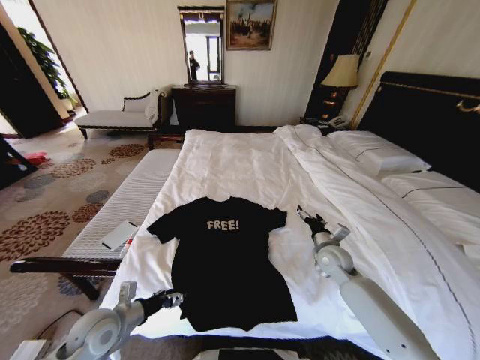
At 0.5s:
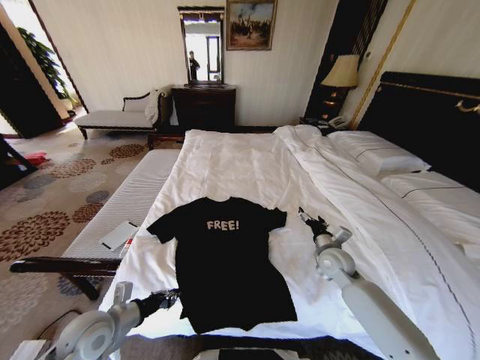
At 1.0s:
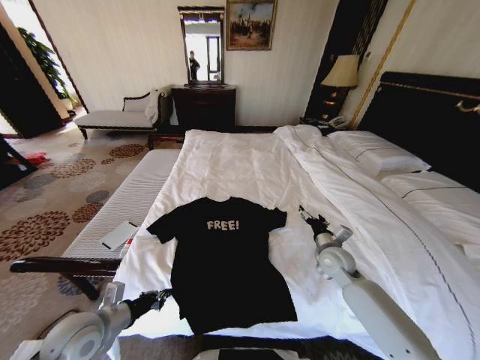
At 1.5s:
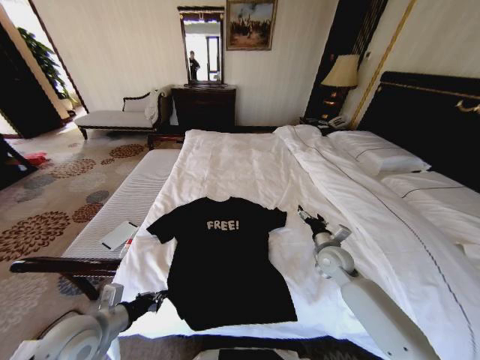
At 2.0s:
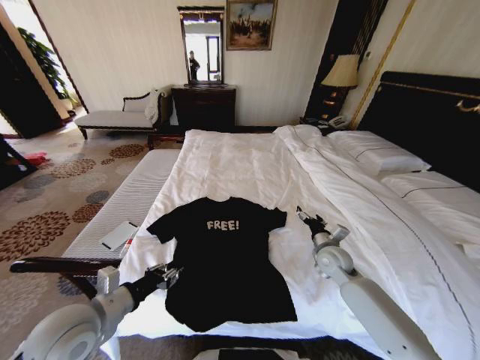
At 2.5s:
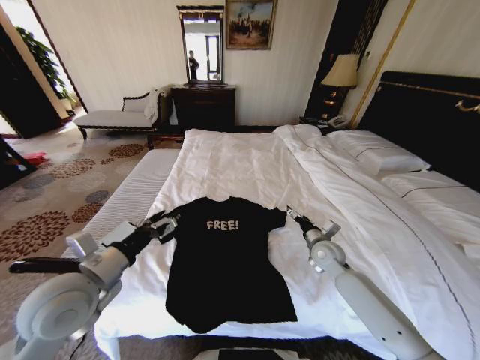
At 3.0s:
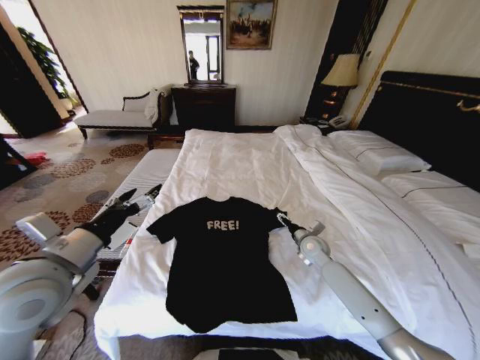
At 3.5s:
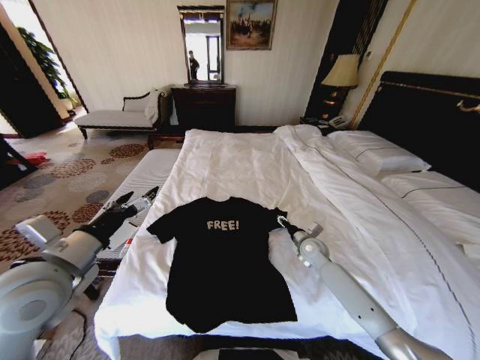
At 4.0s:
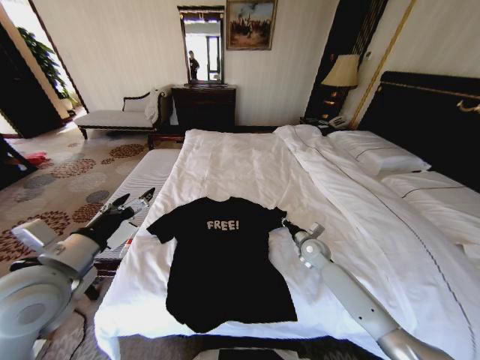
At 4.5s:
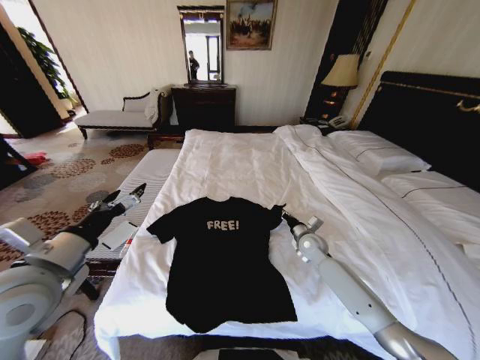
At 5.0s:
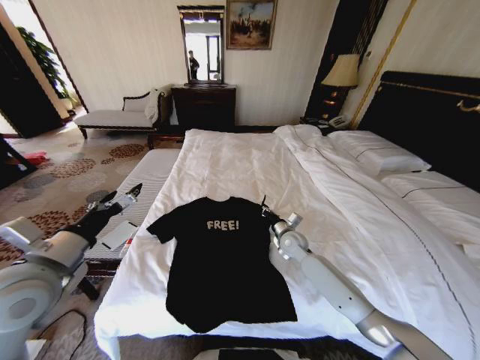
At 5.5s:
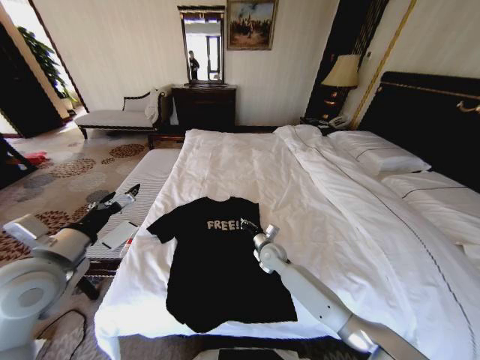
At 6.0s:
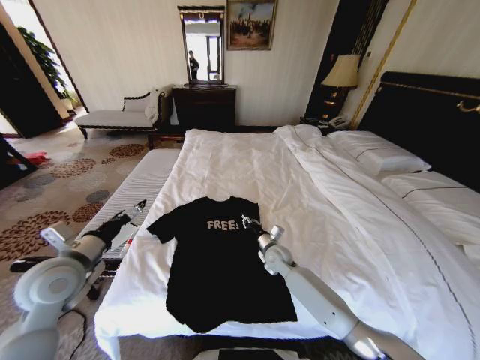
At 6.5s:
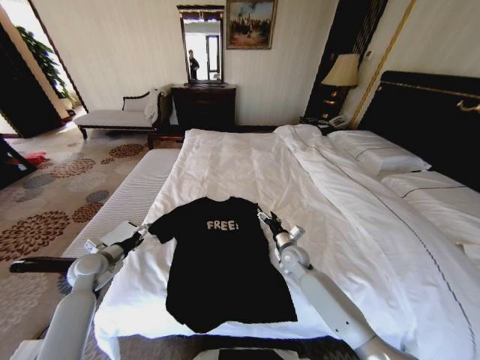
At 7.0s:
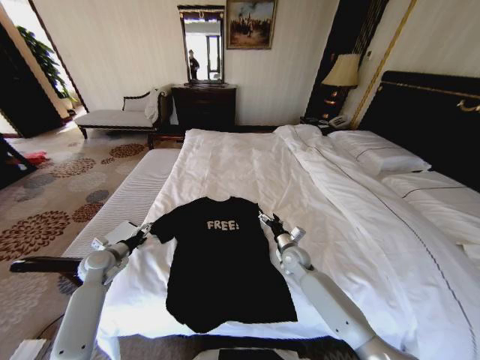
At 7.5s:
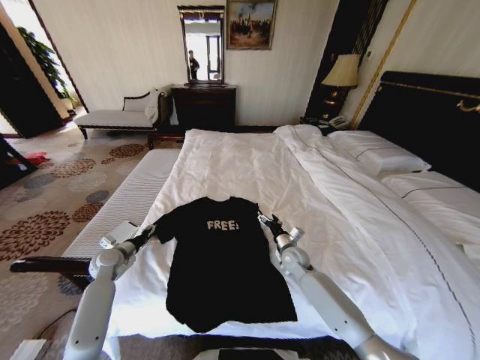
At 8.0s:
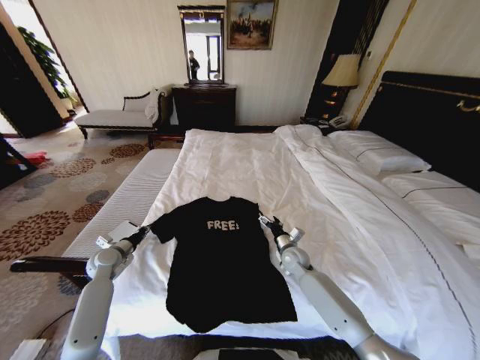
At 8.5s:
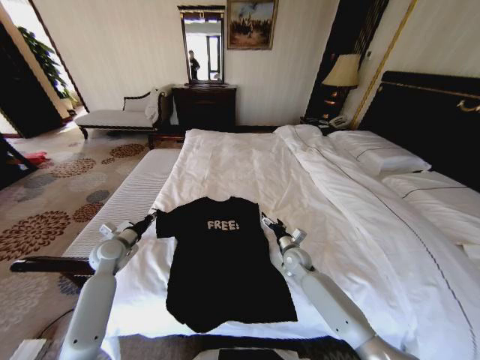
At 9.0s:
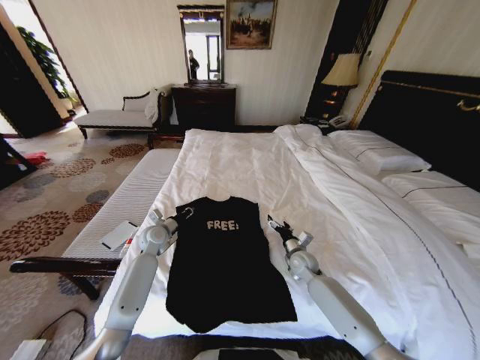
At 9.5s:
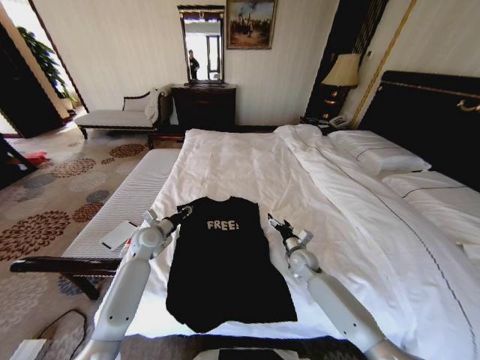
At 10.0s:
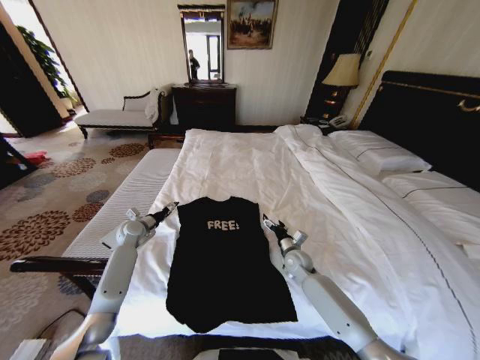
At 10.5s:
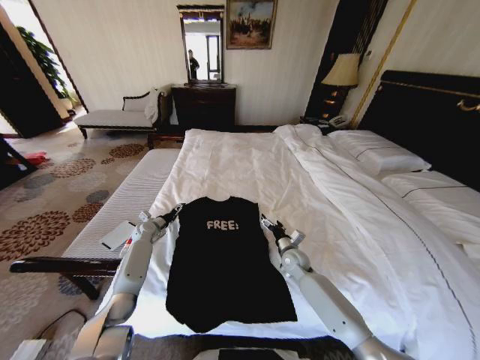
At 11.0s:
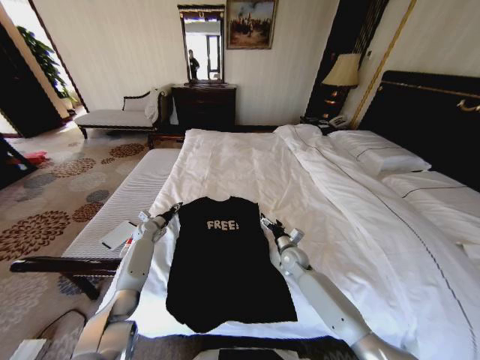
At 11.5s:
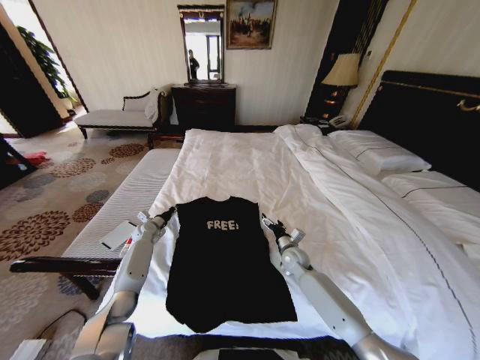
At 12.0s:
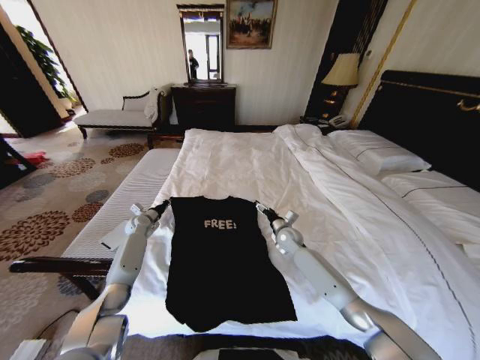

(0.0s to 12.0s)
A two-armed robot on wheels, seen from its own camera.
Task of the whole recording: Fold the clothes on the bed.
0.0s - 2.0s: The left gripper travels upward by roughly 10 cm, and closes up.
2.0s - 4.0s: The right gripper is displaced forward by approximately 5 cm, and closes up; the left gripper is displaced upward by about 10 cm, and opens up.
4.0s - 6.0s: The right gripper travels to the left by some 15 cm; the left gripper moves downward and forward, some 10 cm.
6.0s - 8.0s: The right gripper goes roughly 5 cm to the right, and opens. Meanwhile the left gripper travels downward and forward by approximately 20 cm, and closes its fingers.
8.0s - 10.0s: The left gripper travels forward by about 10 cm, moves approximately 15 cm to the right and comes back, and opens its fingers.
10.0s - 12.0s: The grippers both shift forward by some 5 cm. The left gripper closes up.

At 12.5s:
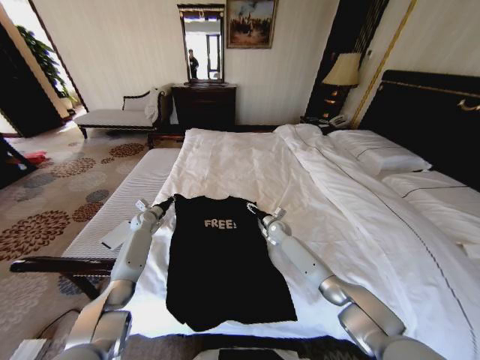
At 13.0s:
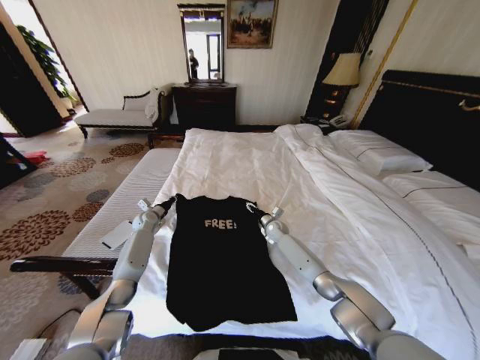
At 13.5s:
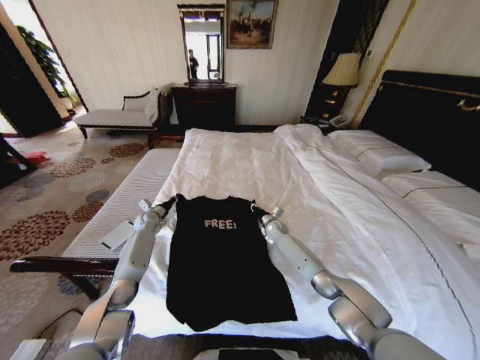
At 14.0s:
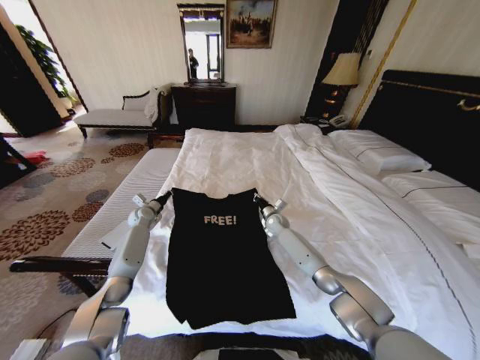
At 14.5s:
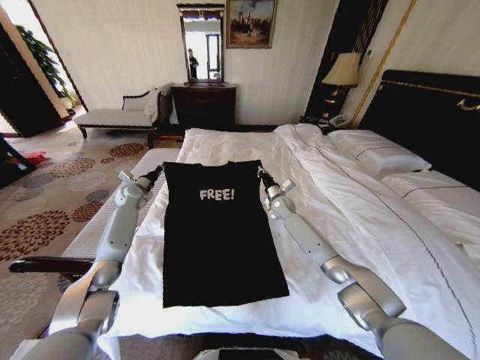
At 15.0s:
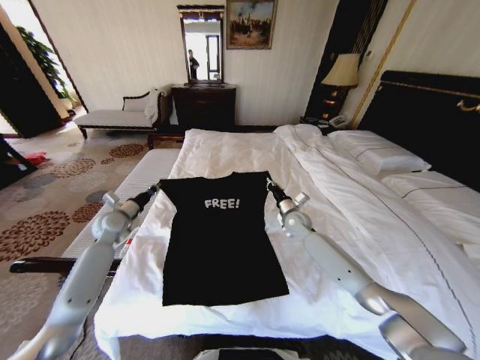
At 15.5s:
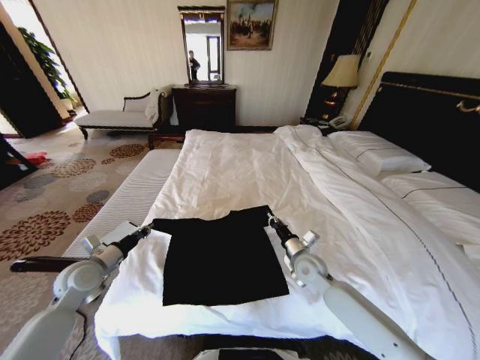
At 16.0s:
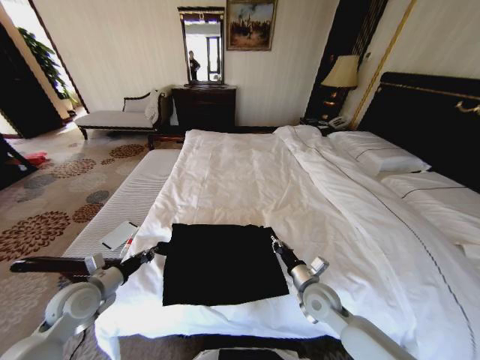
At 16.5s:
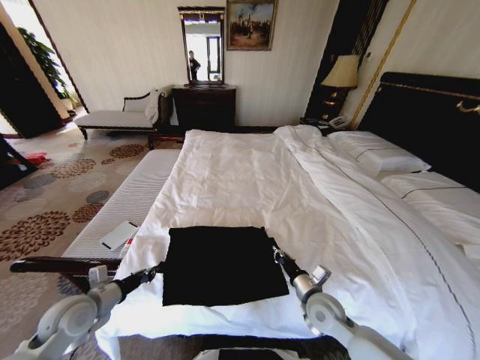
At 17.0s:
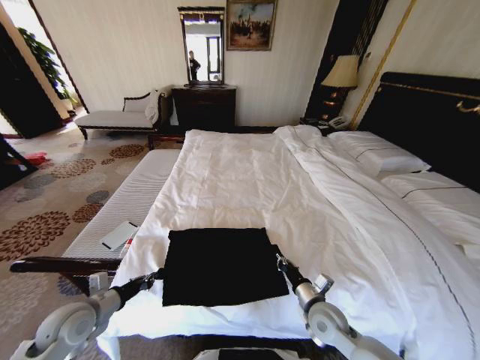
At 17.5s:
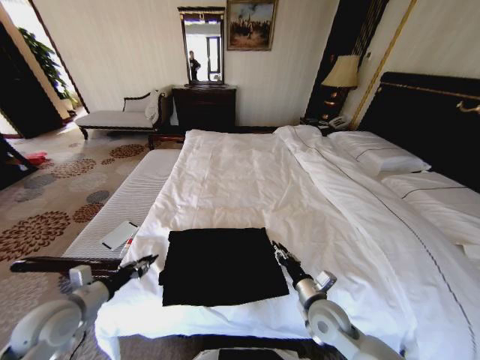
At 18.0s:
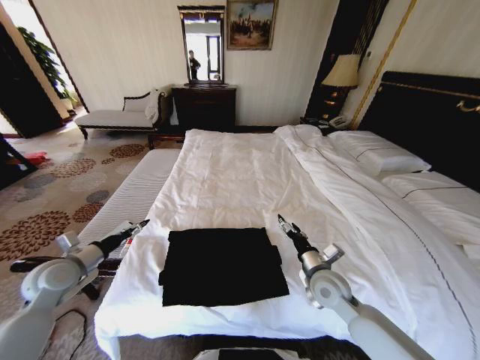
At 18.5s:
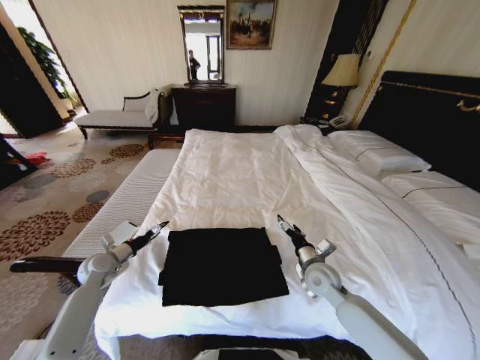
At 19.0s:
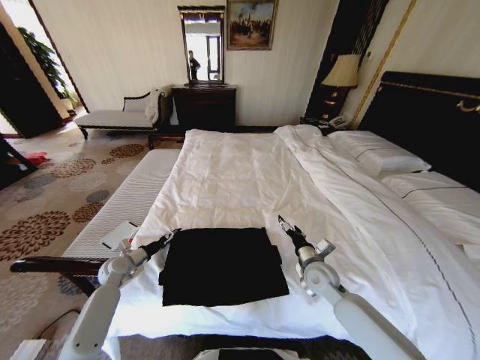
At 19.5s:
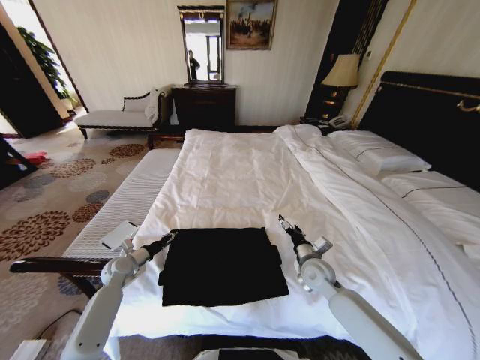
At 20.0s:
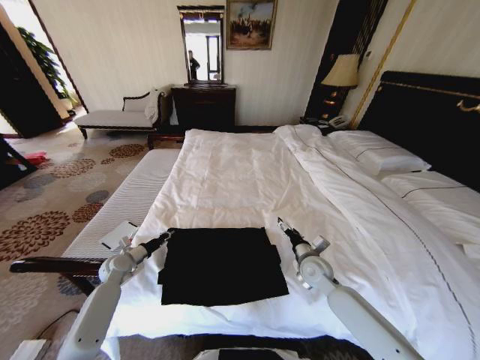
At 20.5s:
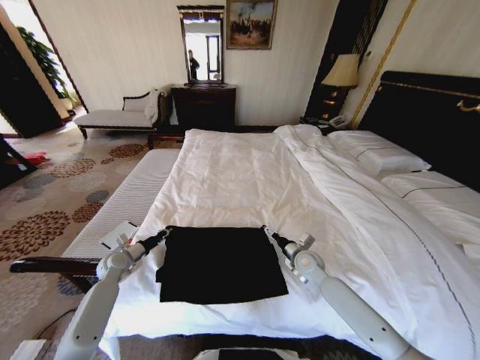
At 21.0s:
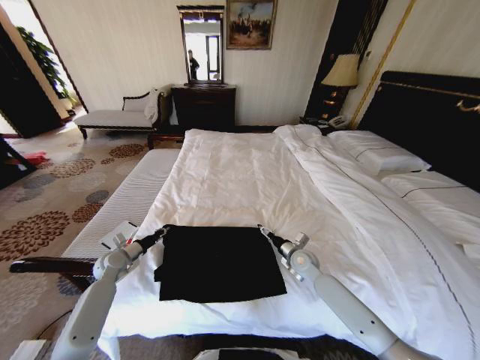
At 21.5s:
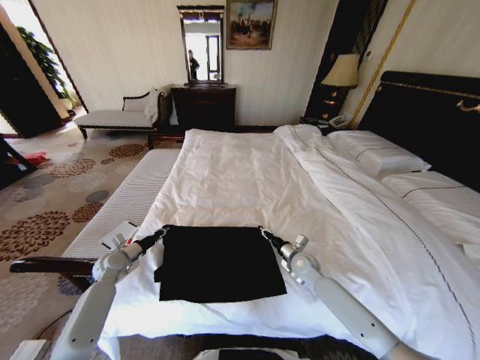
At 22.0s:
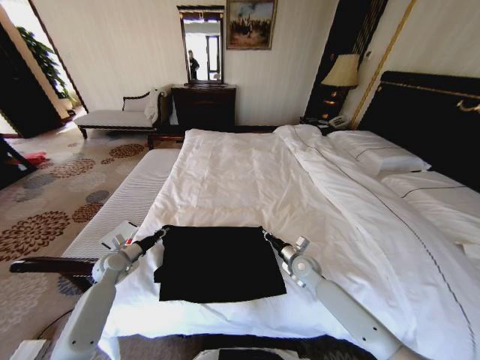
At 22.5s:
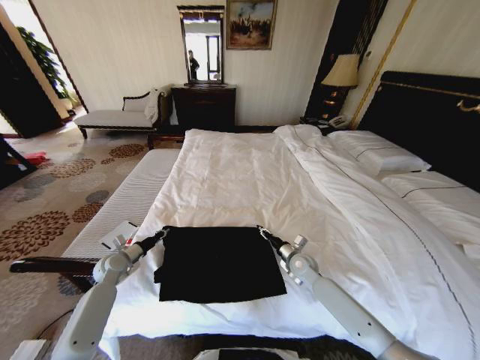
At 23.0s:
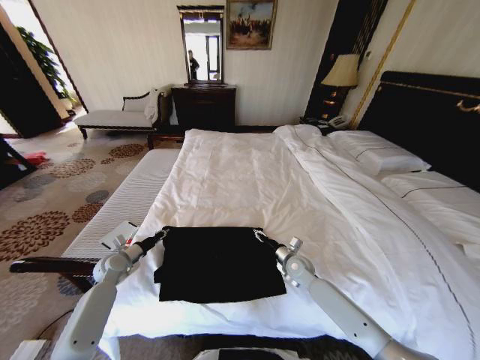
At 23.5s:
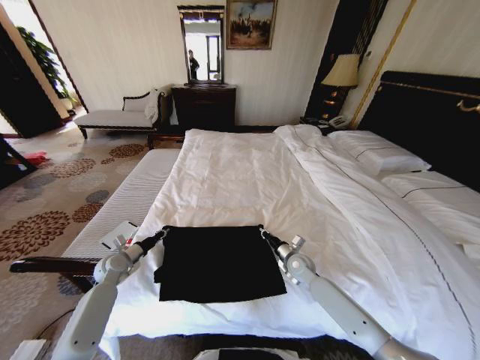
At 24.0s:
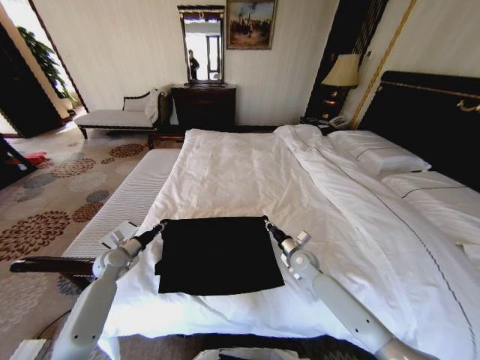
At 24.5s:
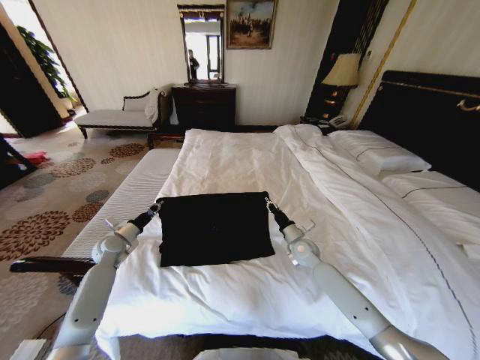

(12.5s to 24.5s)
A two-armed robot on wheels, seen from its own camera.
Task of the whole recording: Fold the clothes on the bed.
12.5s - 14.5s: The grippers both shift upward by about 10 cm. The right gripper closes.
14.5s - 16.5s: Both grippers move backward, about 35 cm.
16.5s - 18.5s: The right gripper travels forward by roughly 10 cm, and opens up. The left gripper travels forward and downward by approximately 15 cm, and opens.
18.5s - 20.5s: The left gripper closes. The right gripper travels forward by roughly 5 cm.
20.5s - 22.5s: The right gripper closes.
22.5s - 24.5s: The left gripper moves roughly 5 cm; the right gripper changes place by roughly 5 cm, and closes up.

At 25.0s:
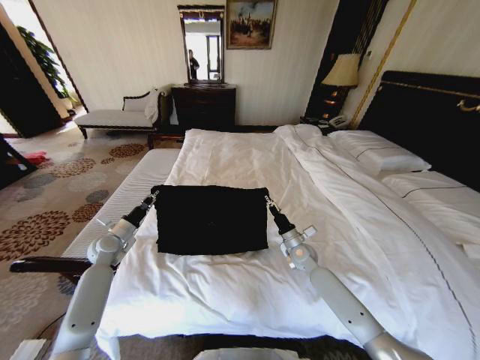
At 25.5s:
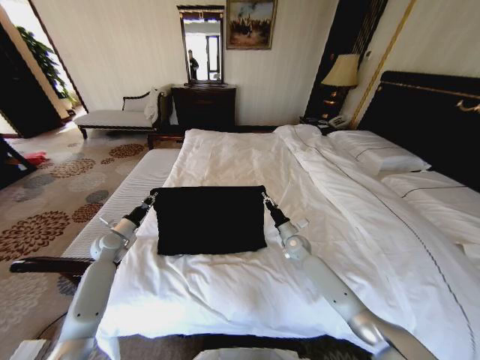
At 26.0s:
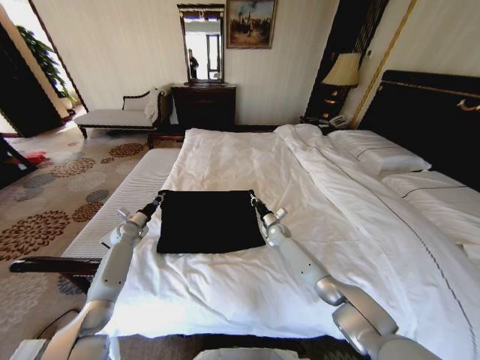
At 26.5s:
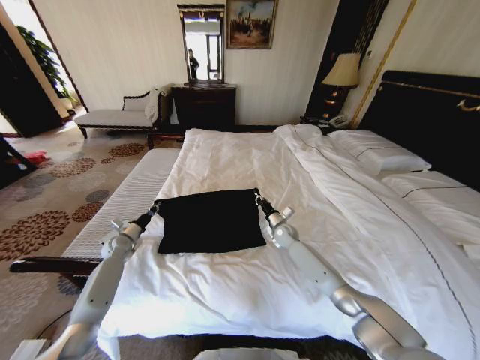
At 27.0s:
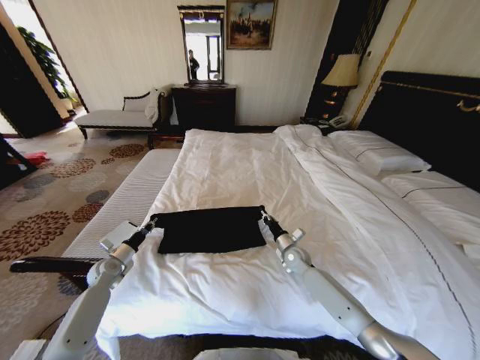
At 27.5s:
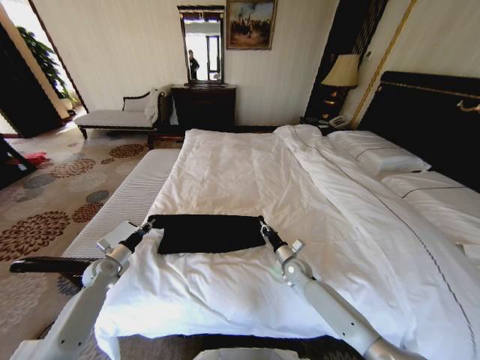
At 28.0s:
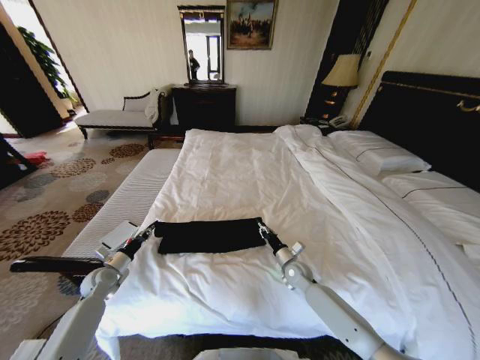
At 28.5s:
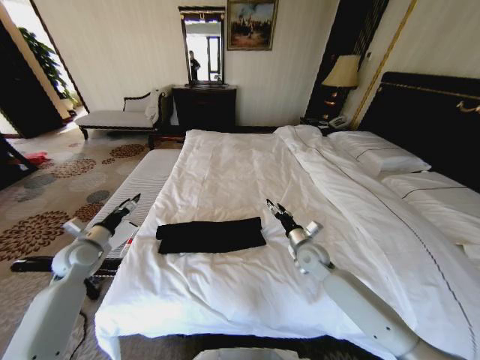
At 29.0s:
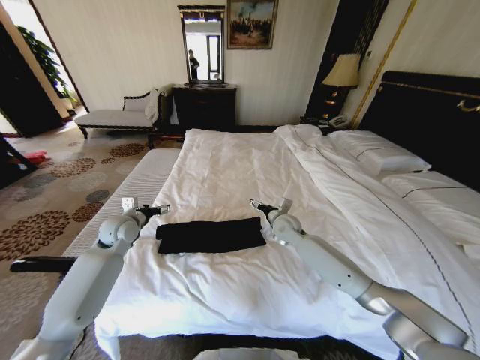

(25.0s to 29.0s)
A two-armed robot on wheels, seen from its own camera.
Task of the whole recording: Fold the clothes on the bed.
25.0s - 27.0s: The right gripper reaches roughly 15 cm forward, then returns, while the left gripper goes approximately 10 cm downward, and travels forward and back again, approximately 10 cm each way.
27.0s - 29.0s: The left gripper goes about 20 cm upward and to the right, and opens its fingers. Meanwhile the right gripper is displaced upward and to the left by roughly 15 cm, and opens its fingers.
